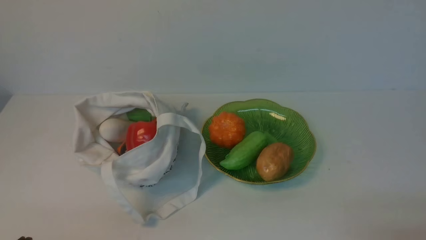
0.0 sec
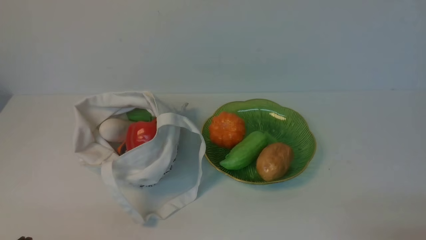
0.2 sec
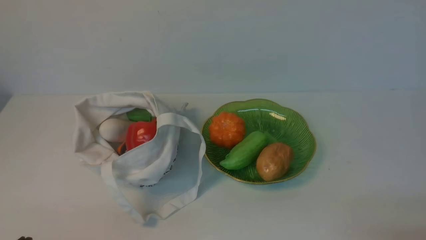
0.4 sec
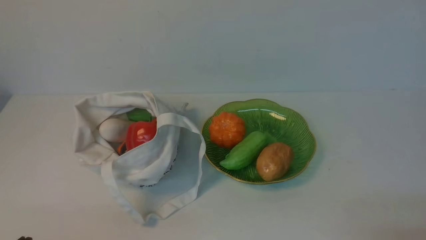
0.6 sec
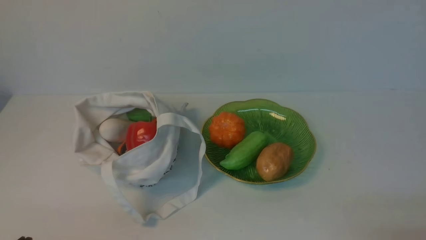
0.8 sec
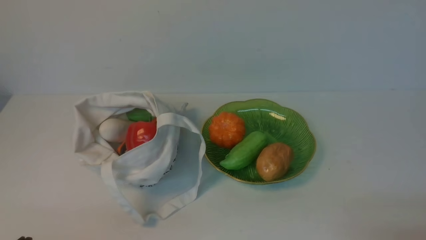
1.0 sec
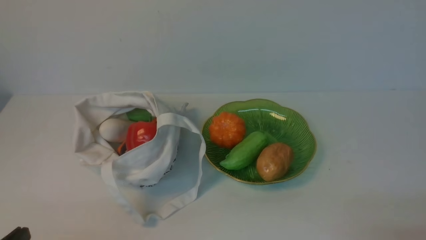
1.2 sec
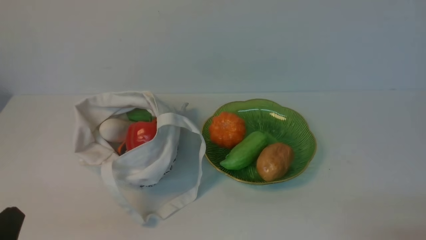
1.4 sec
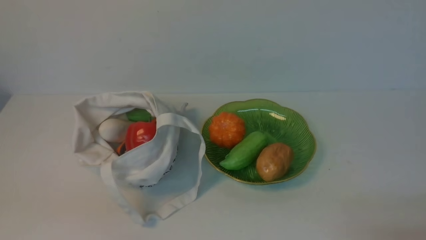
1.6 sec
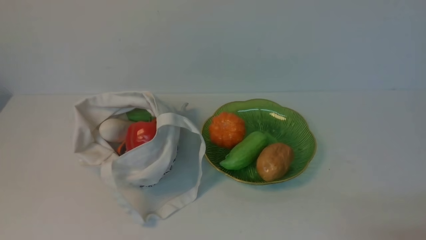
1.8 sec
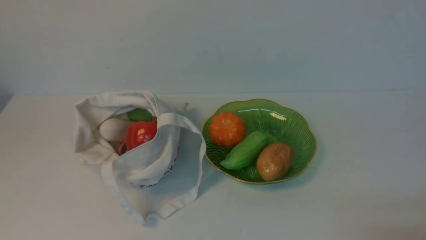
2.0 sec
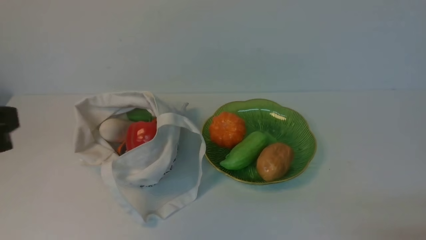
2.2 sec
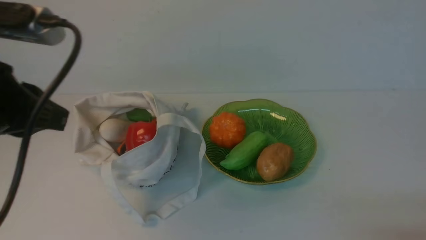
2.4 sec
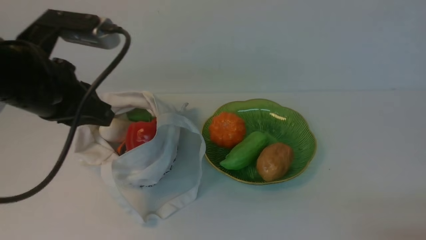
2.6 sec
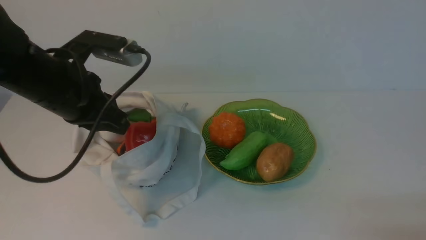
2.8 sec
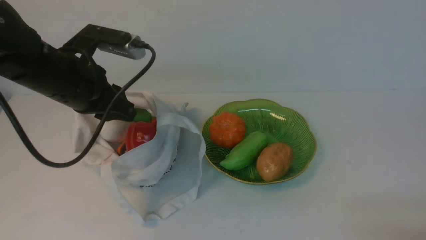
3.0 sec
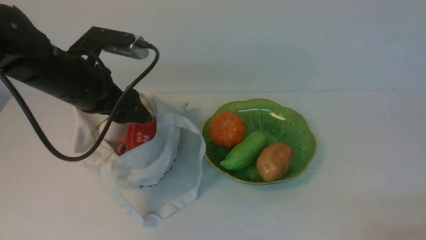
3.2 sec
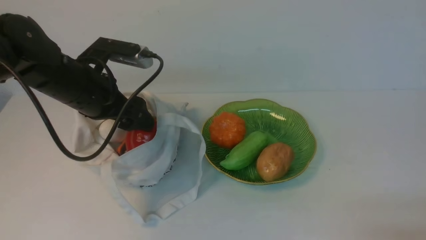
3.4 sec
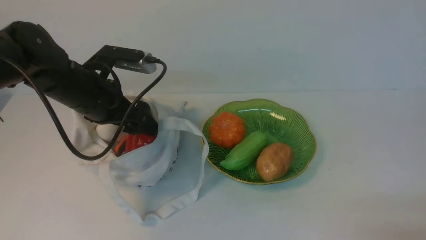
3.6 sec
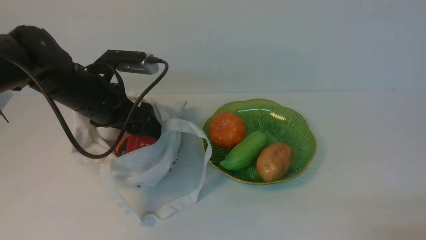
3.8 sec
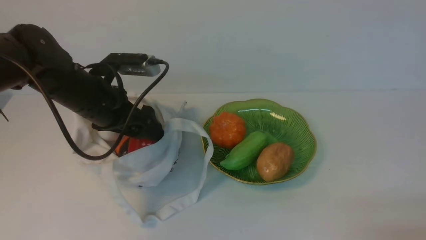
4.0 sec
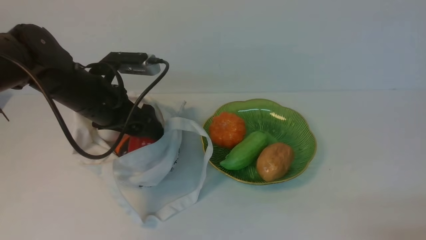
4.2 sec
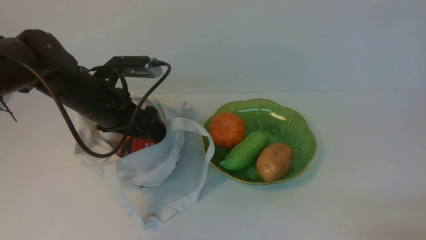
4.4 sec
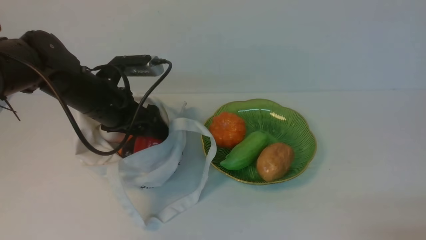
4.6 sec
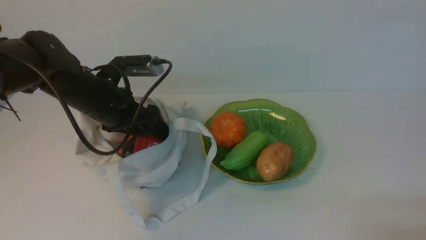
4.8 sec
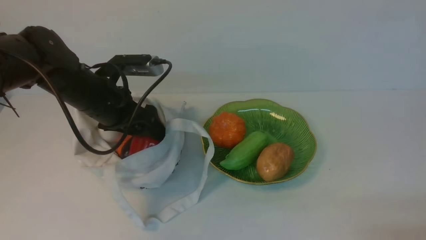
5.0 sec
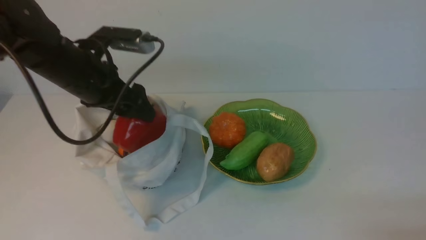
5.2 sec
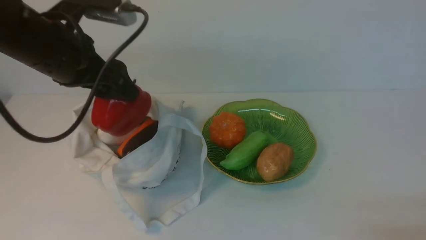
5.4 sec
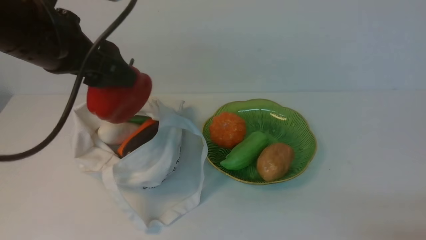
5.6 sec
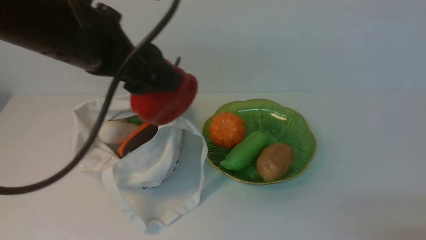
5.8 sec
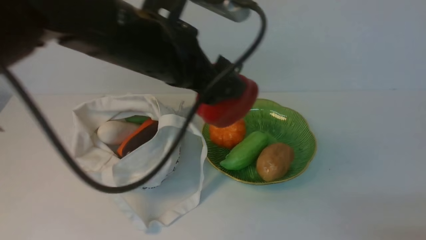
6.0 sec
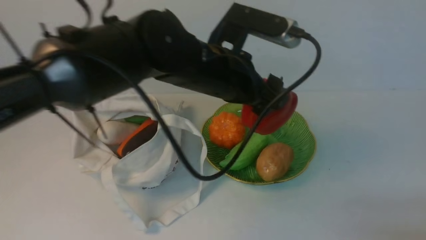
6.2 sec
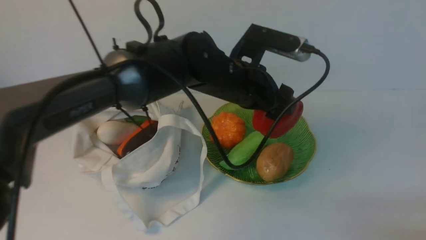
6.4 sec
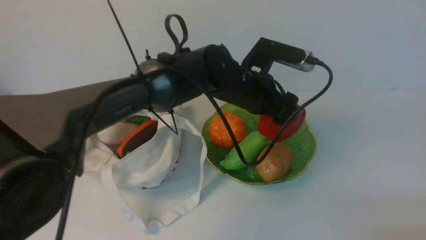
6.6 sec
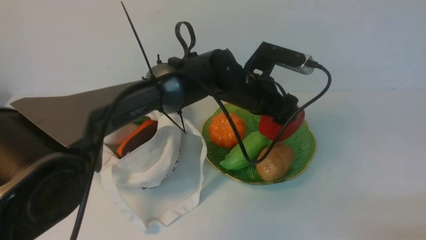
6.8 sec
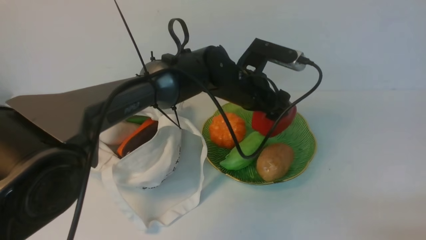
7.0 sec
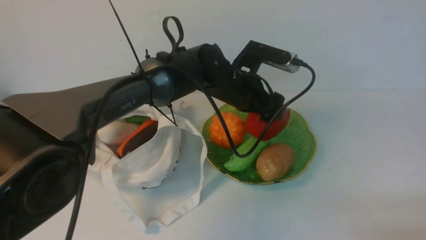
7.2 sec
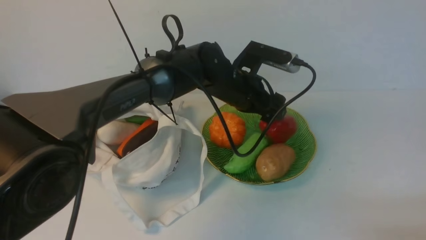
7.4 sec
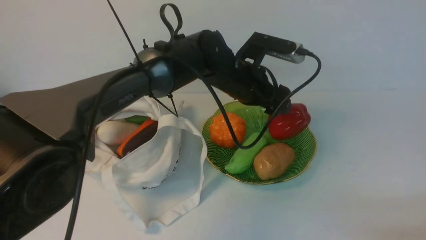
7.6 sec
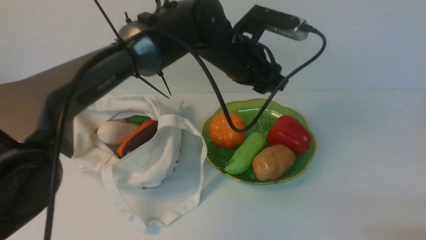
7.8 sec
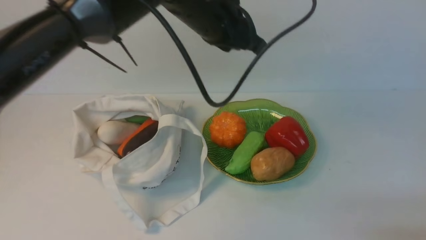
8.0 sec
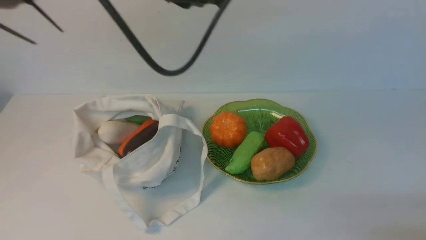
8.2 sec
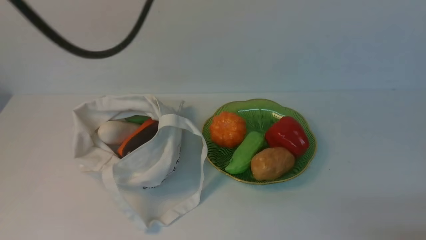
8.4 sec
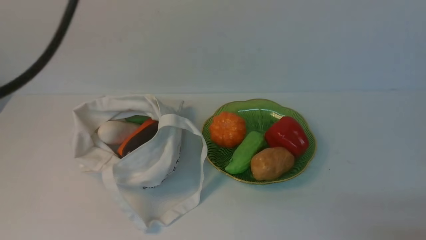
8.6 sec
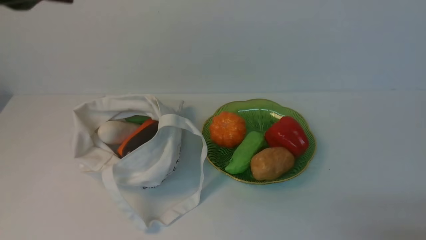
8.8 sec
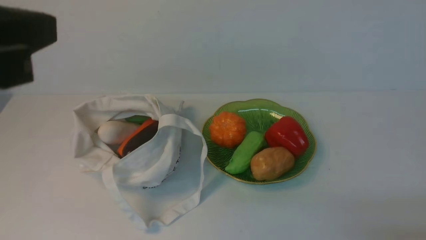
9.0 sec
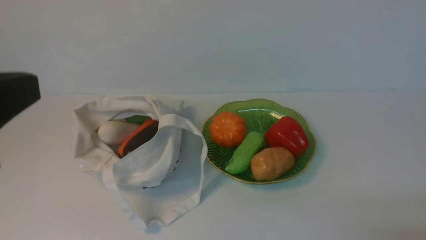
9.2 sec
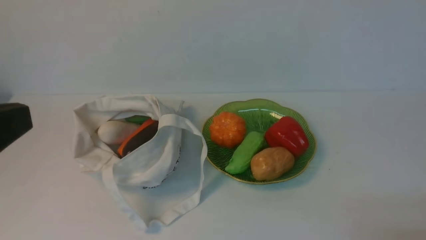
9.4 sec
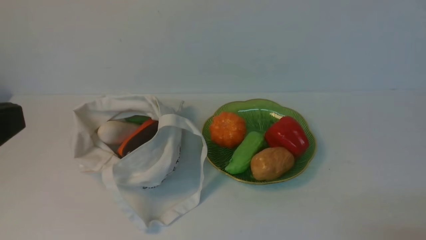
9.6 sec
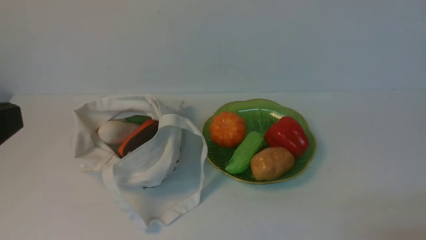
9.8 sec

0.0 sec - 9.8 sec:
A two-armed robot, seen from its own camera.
Task of the whole recording: take vegetables from cloth bag on white table place on plate.
Step, 0.0 sec - 4.4 sec: Grasp the bell pepper with left gripper.
Step, 4.8 sec - 7.6 sec: Place the bell pepper on the plate with left gripper.
1.4 sec - 2.8 sec: The left gripper heads forward and upward, covering some 25 cm.
2.8 sec - 4.2 sec: The left gripper is displaced downward and forward by some 10 cm, and opens.
4.2 sec - 5.6 sec: The left gripper travels upward by approximately 10 cm.
5.6 sec - 7.0 sec: The left gripper travels to the right, downward and forward by roughly 30 cm.
7.0 sec - 8.4 sec: The left gripper heads upward and to the left, covering about 25 cm, and closes.
8.4 sec - 9.8 sec: The left gripper heads backward and to the left, covering about 30 cm.

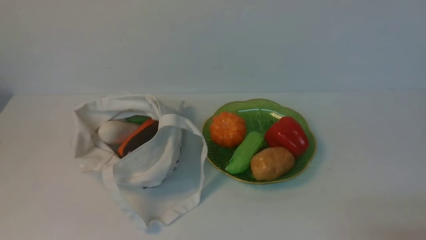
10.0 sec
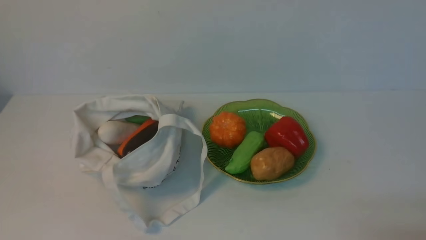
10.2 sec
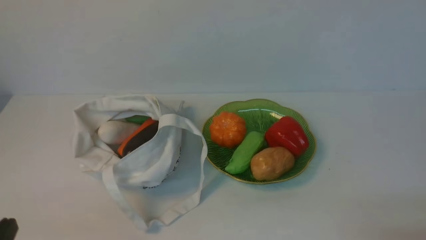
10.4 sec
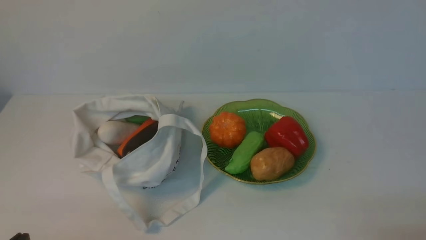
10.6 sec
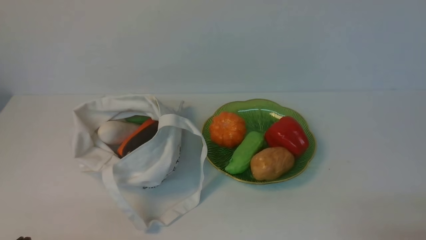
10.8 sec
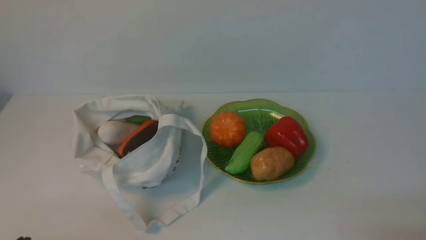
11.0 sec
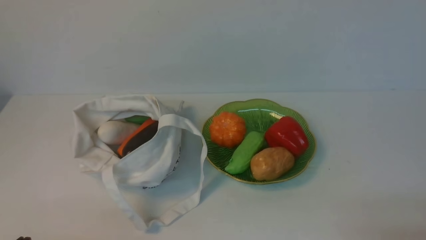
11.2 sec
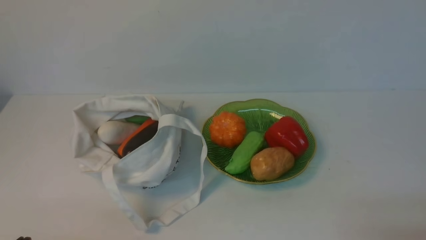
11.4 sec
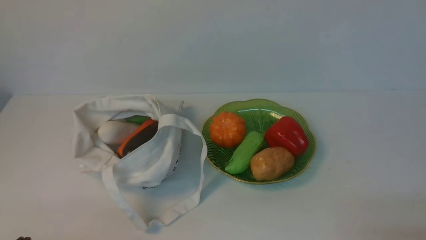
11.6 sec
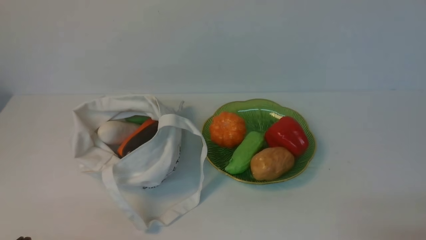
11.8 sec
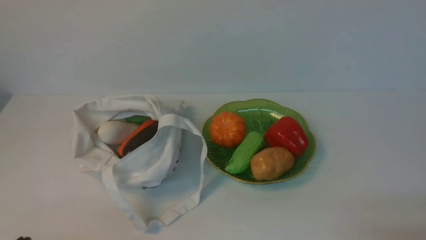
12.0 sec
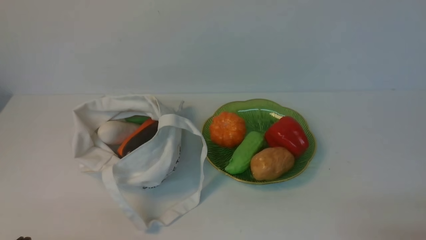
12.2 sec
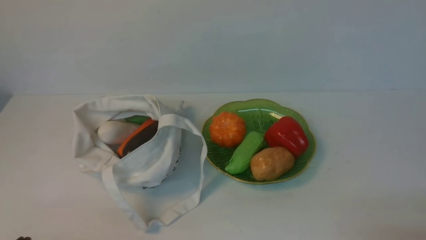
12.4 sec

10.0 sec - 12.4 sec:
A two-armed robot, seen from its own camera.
Task of the whole recording: take vegetables from cloth bag on white table place on plate.
11.2 sec - 12.4 sec: Neither gripper changes place.
